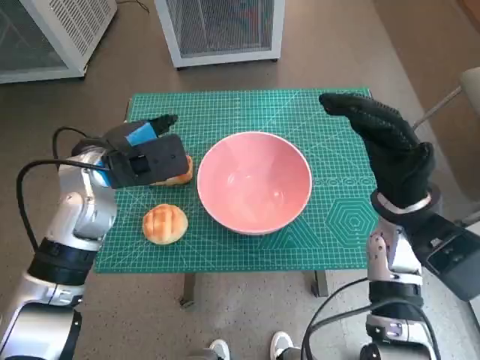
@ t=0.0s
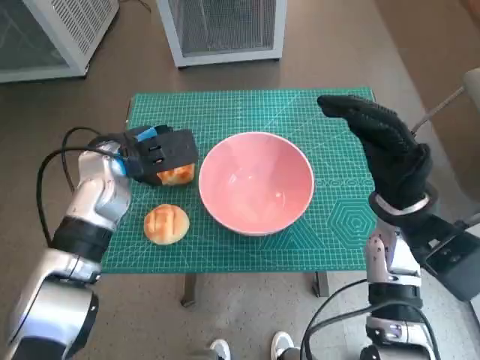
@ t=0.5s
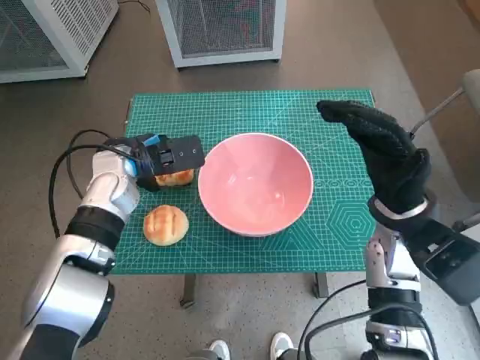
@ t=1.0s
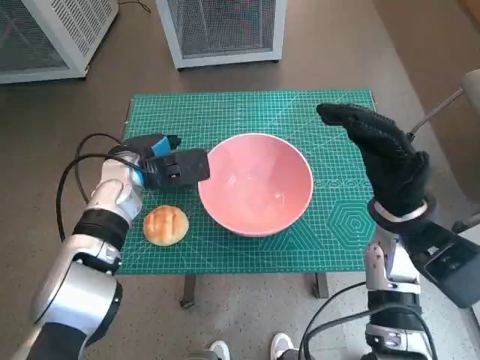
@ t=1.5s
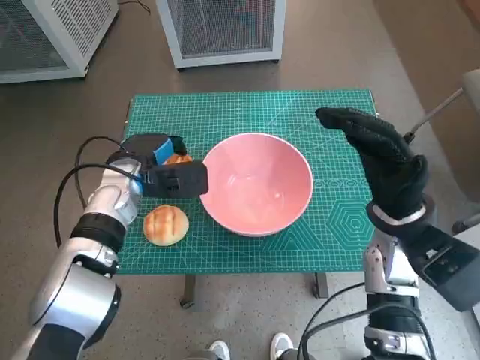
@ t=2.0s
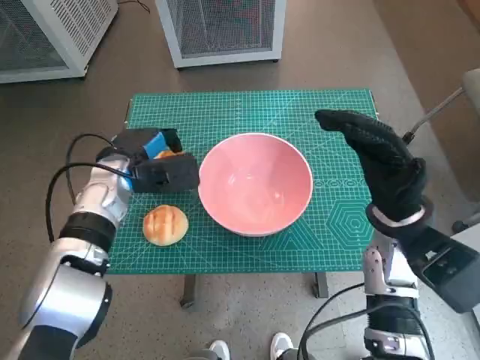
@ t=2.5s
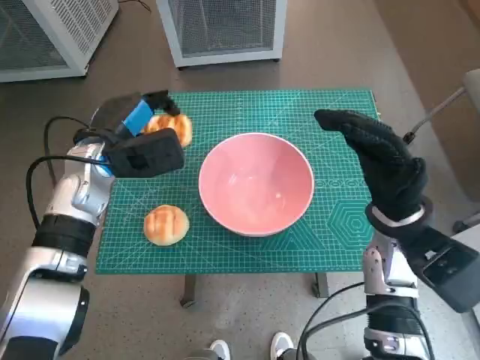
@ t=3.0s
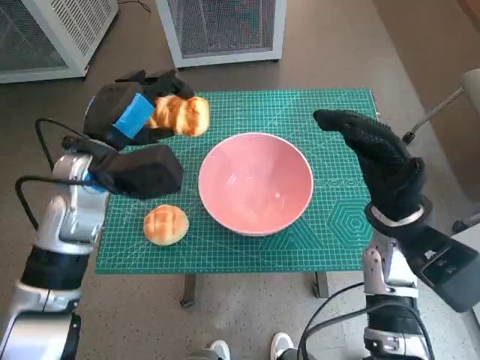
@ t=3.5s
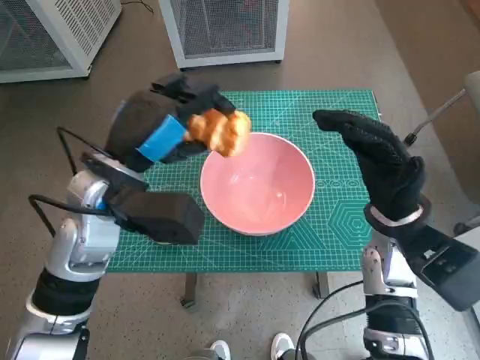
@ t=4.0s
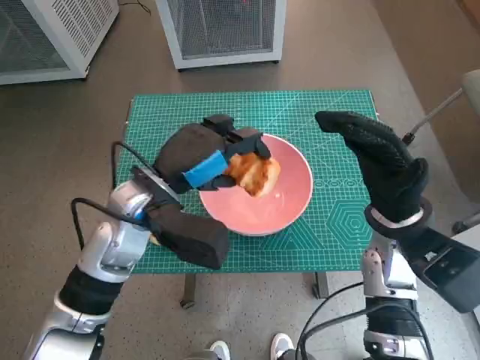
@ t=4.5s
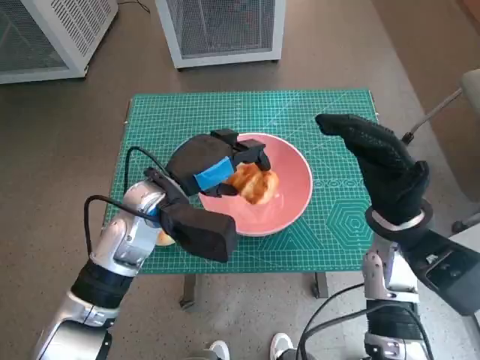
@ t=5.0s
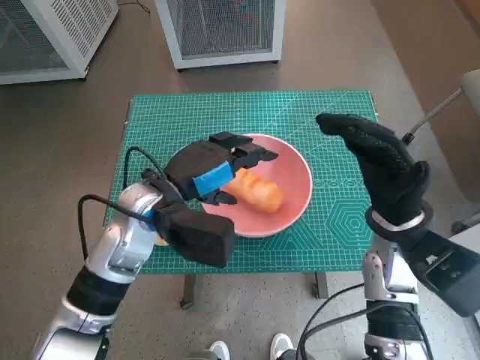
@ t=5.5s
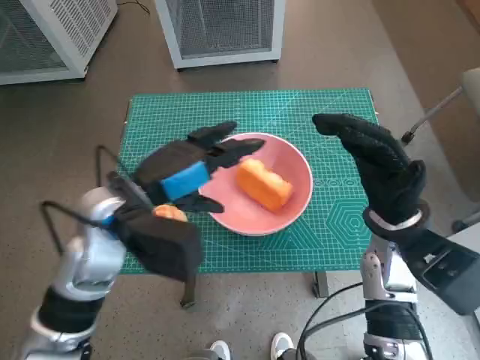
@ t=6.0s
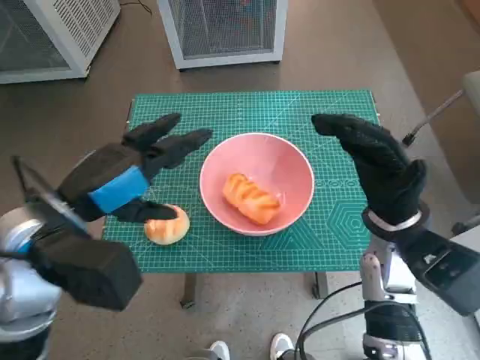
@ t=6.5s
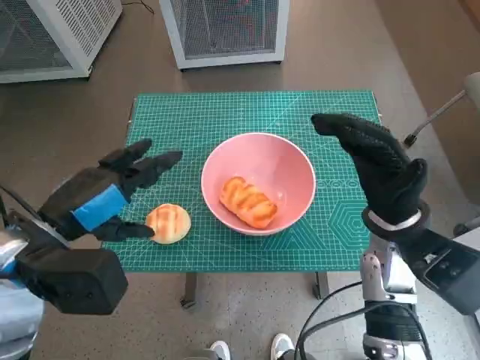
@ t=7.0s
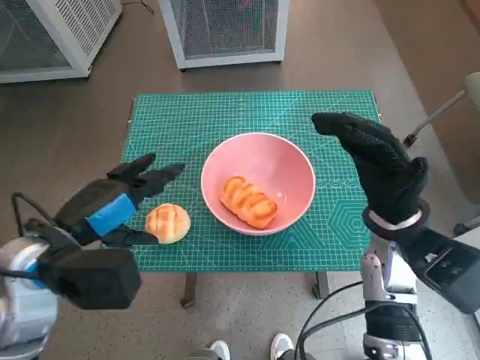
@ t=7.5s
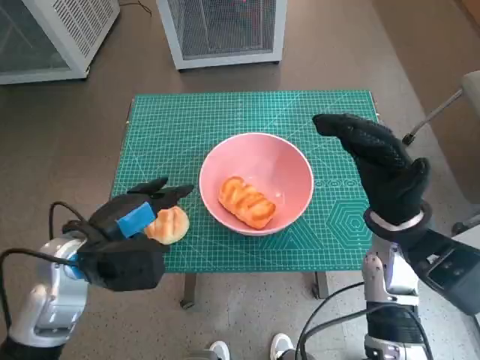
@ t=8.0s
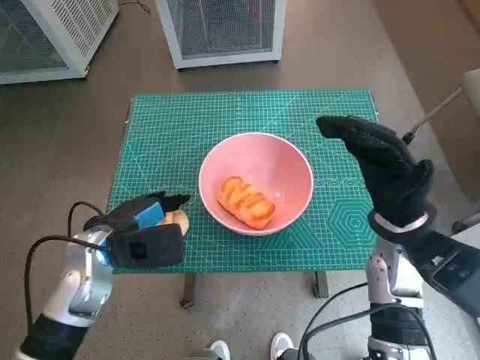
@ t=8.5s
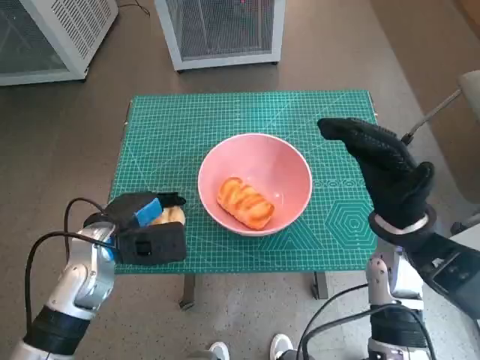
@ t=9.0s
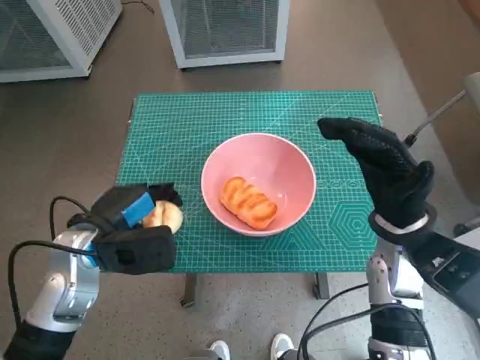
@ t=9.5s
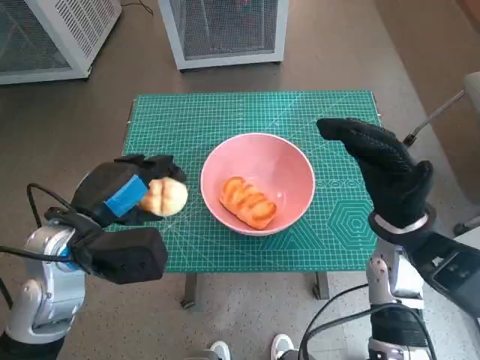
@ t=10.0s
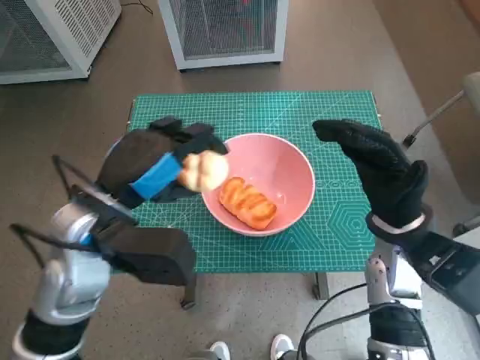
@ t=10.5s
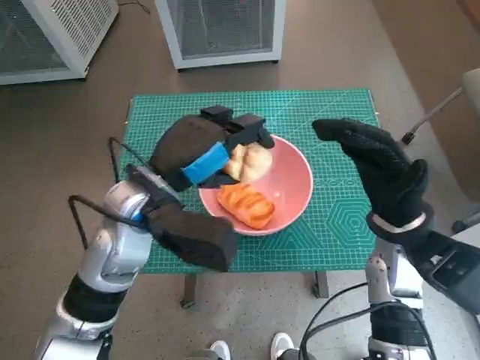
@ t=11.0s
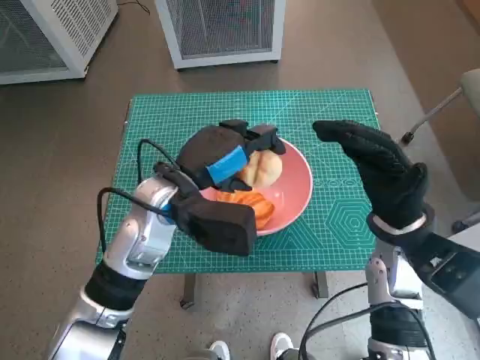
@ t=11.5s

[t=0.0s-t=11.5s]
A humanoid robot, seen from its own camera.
Task of the whole recording: Push the bowl into the center of the table and put the bread into the bowl.
Step, t=2.0s to t=5.0s: Place the long bread in pink bowl with left hand.
Step, t=5.5s to t=8.5s: Grasp the round bread with left hand.
t=0.0s to t=2.0s: The left hand moves downward, some 5 cm.
t=2.0s to t=4.0s: The left hand heads upward and backward, covering some 10 cm.
t=6.0s to t=7.5s: The left hand is displaced to the left and backward by roughly 10 cm.
t=7.5s to t=9.5s: The left hand heads downward, covering roughly 5 cm.
t=9.5s to t=11.5s: The left hand travels to the right and upward by approximately 10 cm.

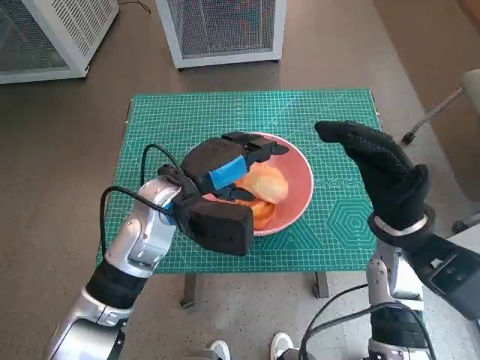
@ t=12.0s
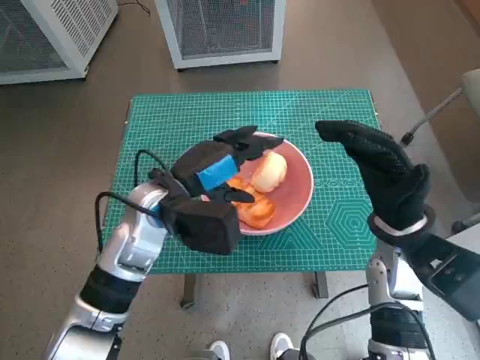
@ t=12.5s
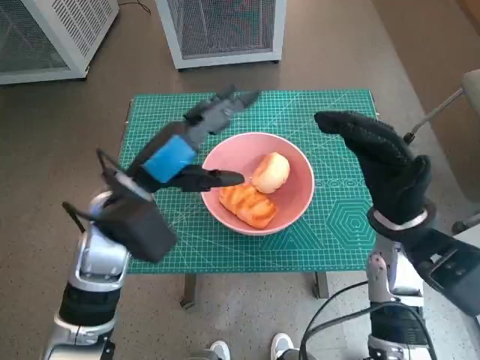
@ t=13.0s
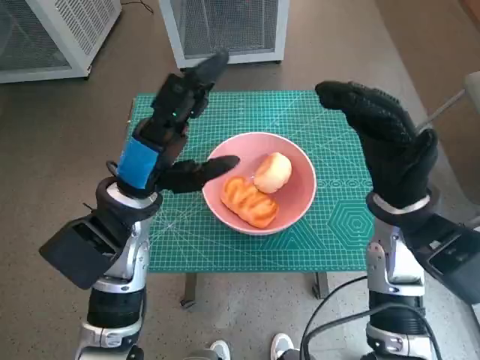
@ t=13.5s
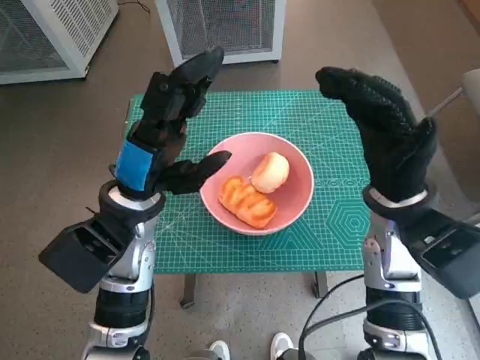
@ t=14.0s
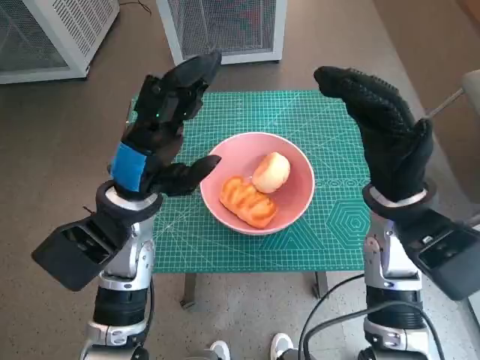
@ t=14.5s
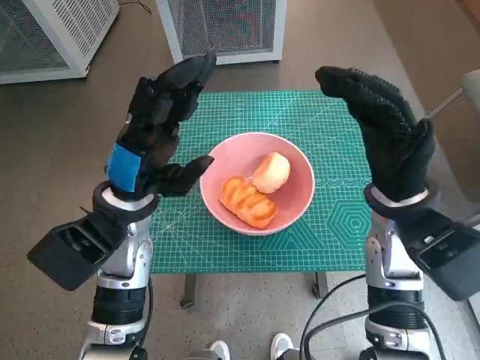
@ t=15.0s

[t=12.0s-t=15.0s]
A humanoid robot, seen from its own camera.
Task of the whole recording: Push the bowl into the center of the table and put the bread into the bowl.
t=12.0s to t=13.5s: The left hand changes place by roughly 5 cm.
t=13.5s to t=15.0s: The hands stay close to where they were, moving slightly.

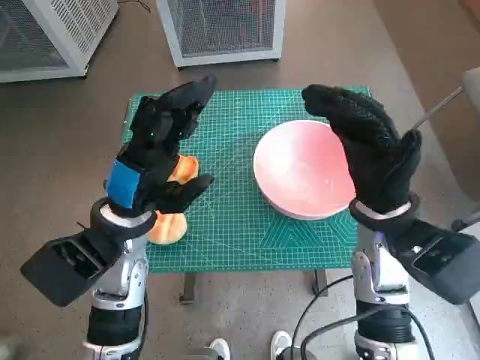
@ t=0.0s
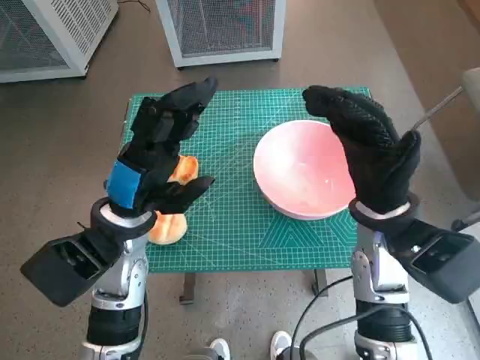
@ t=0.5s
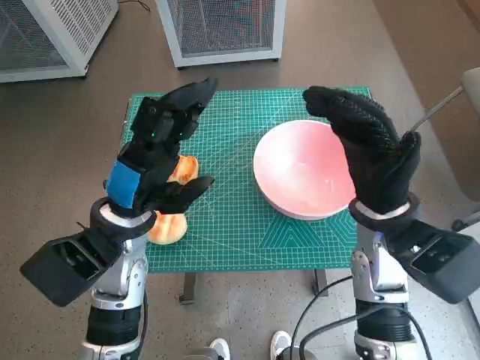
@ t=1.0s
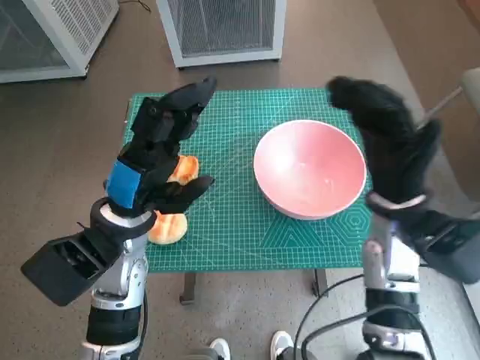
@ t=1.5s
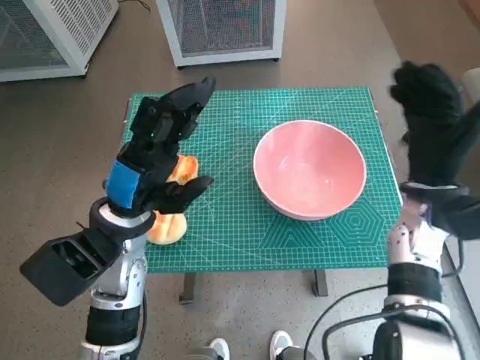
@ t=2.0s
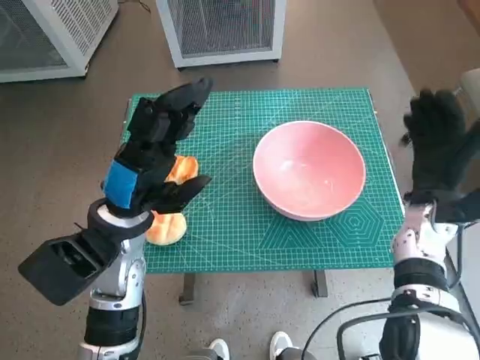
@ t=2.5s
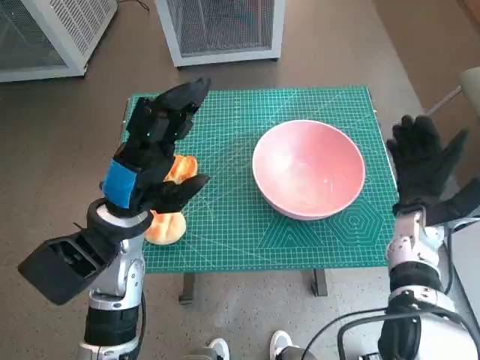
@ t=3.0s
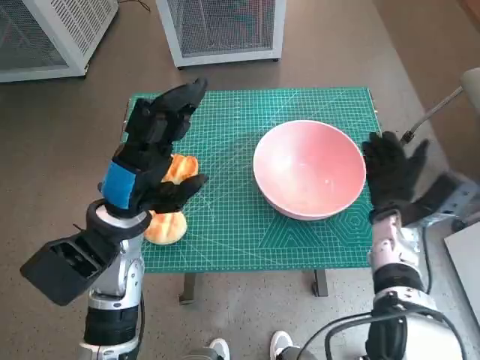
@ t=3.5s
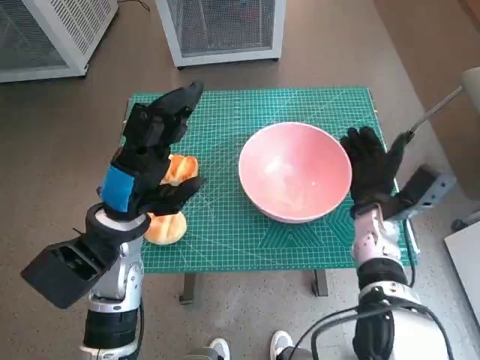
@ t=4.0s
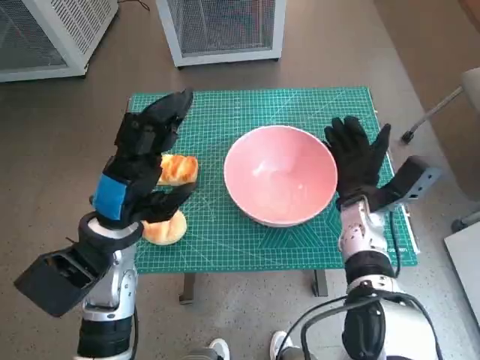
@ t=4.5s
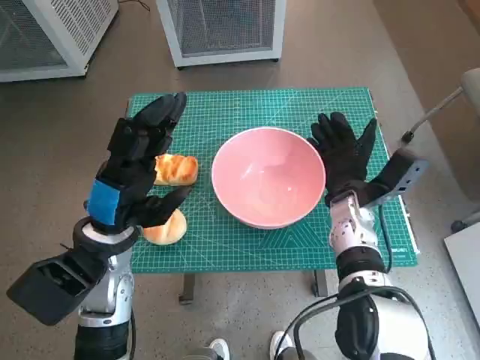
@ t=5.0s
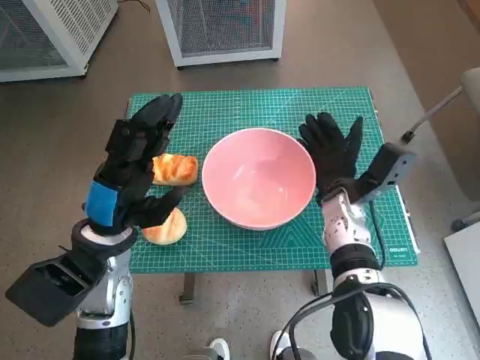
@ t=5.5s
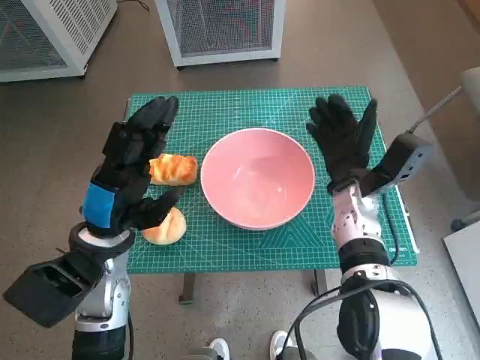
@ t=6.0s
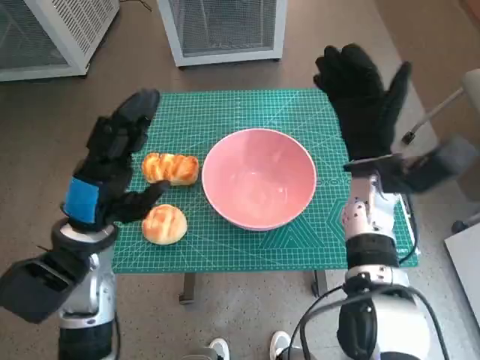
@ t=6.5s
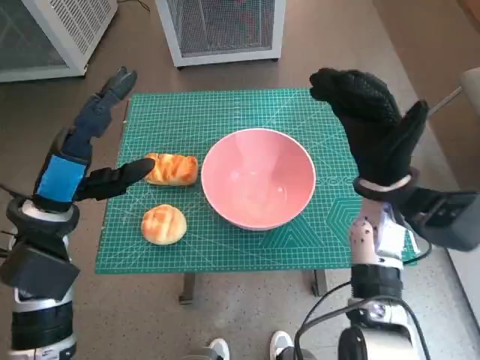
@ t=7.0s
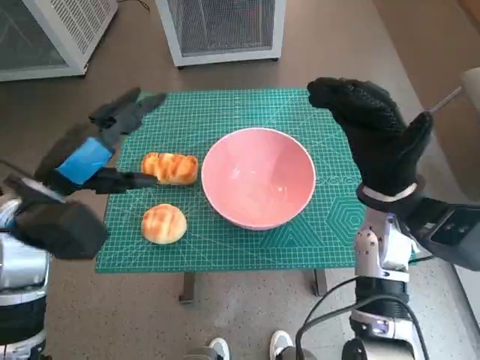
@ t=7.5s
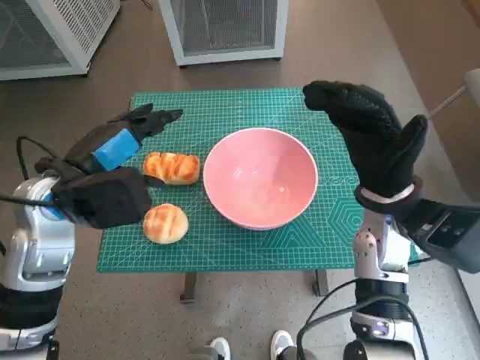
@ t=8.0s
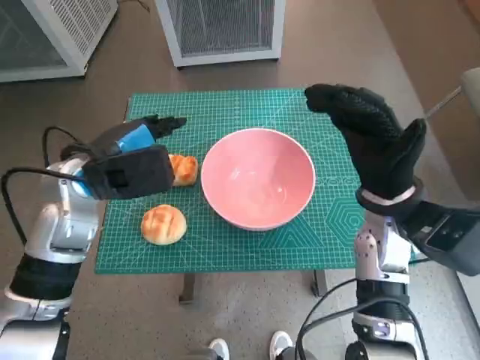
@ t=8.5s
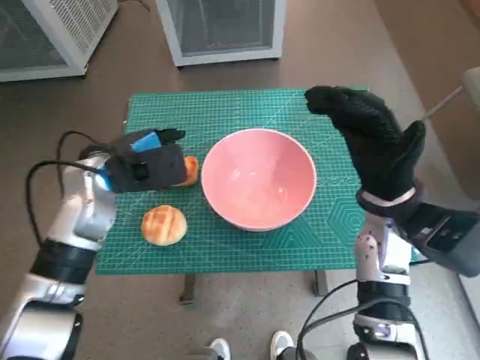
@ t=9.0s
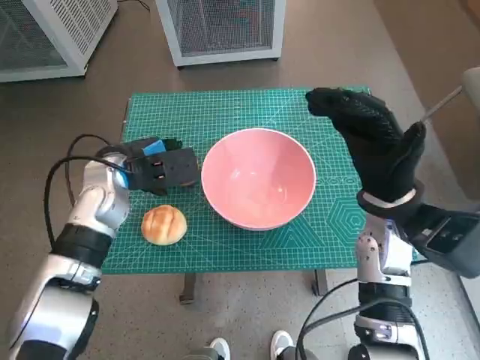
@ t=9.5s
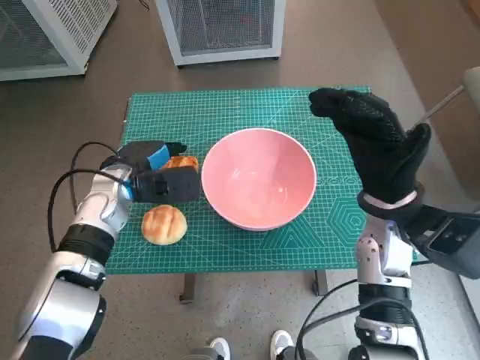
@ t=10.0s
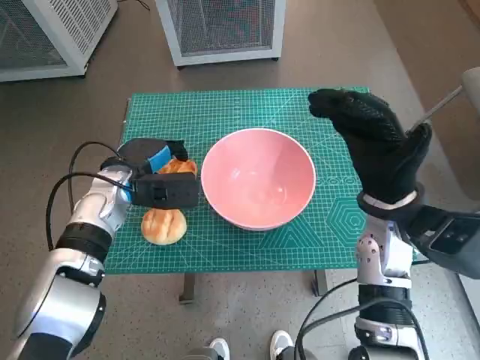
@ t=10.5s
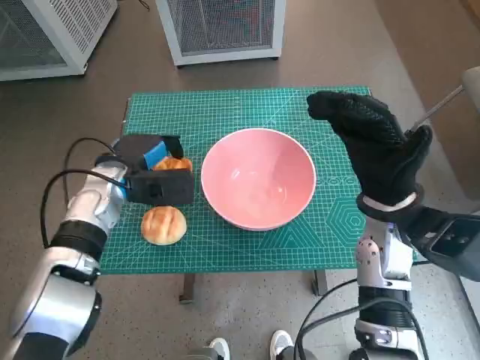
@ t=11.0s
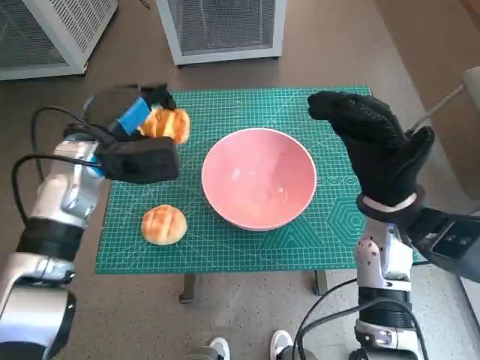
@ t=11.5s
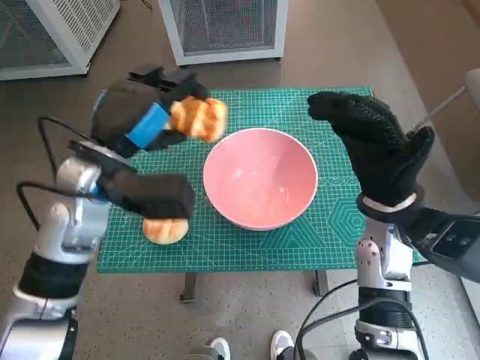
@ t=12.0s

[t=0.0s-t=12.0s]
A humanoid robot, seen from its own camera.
Task of the whole recording: Push the bowl into the center of the table and put the bread into the bowl.
Step, t=0.0s to t=5.5s: Move the pink bowl to the center of table with right hand.
Step, t=6.0s to t=10.0s: Grasp the long bread with left hand.
t=2.0s to t=4.0s: The right hand is displaced downward by some 10 cm.
t=4.0s to t=6.0s: The right hand moves about 5 cm.
t=6.0s to t=8.0s: The hands both shift upward by about 5 cm.
t=8.0s to t=10.0s: The left hand shifts some 10 cm downward and forward.
t=10.0s to t=12.0s: The left hand goes about 10 cm upward.
